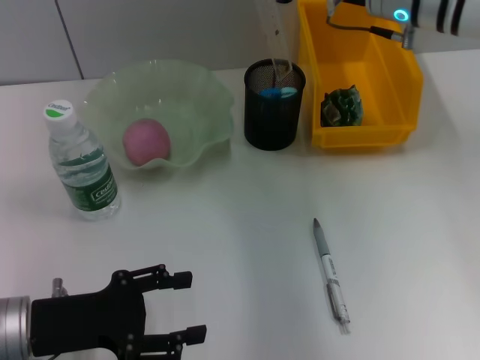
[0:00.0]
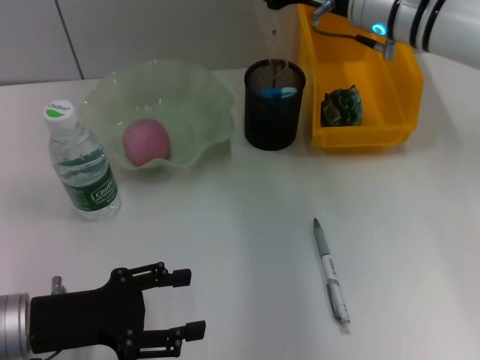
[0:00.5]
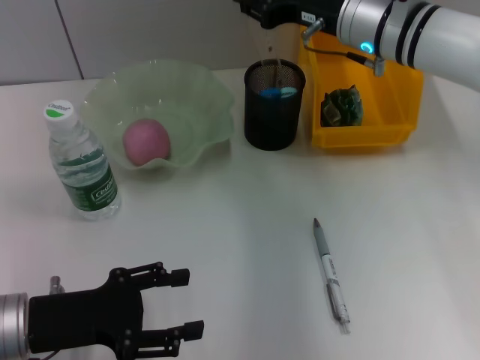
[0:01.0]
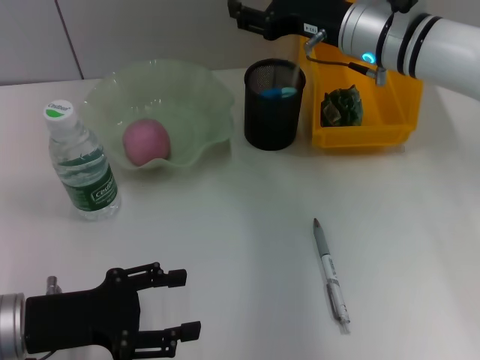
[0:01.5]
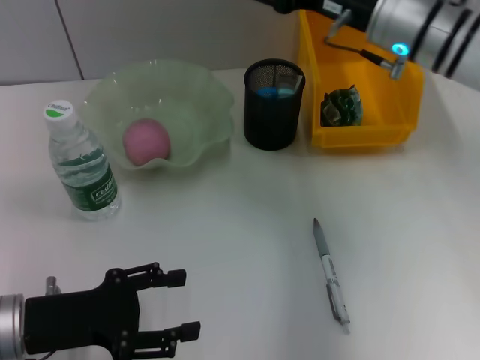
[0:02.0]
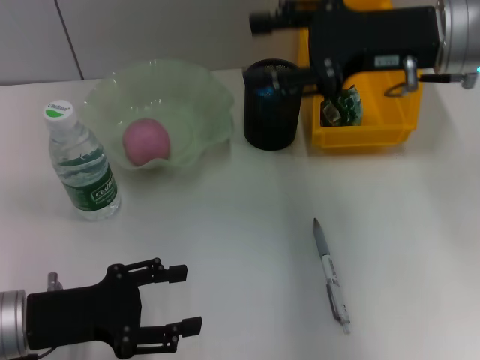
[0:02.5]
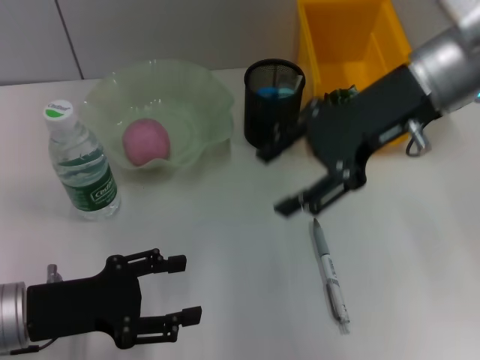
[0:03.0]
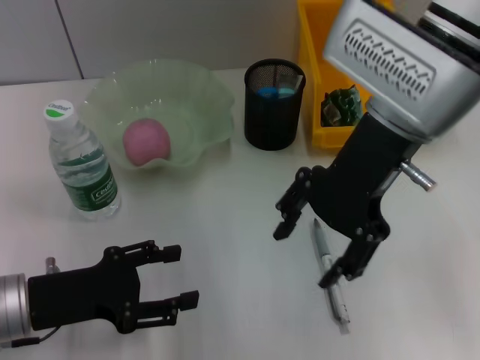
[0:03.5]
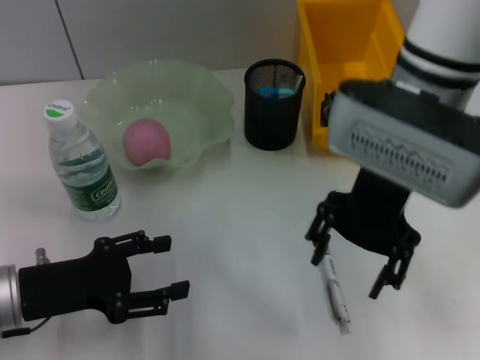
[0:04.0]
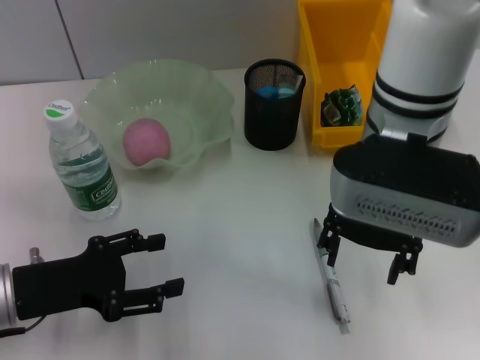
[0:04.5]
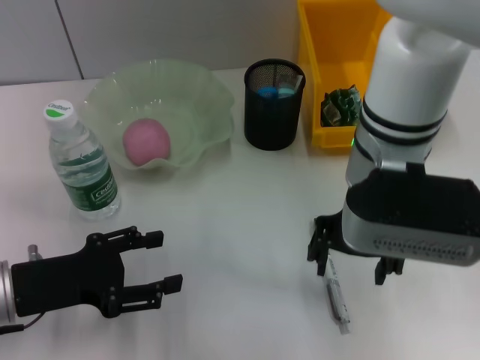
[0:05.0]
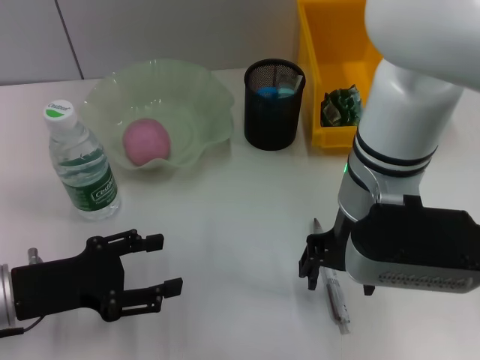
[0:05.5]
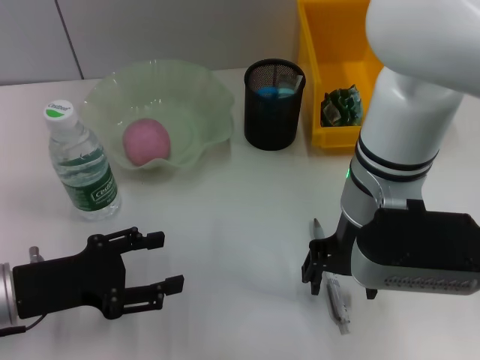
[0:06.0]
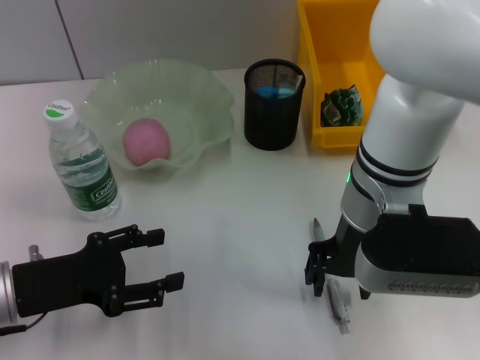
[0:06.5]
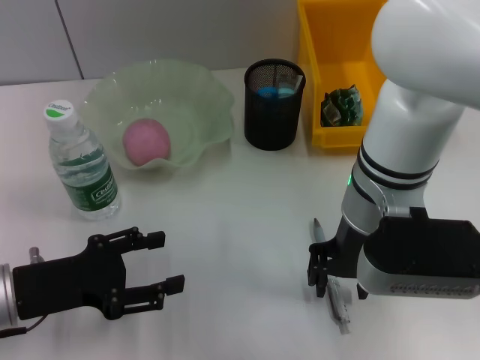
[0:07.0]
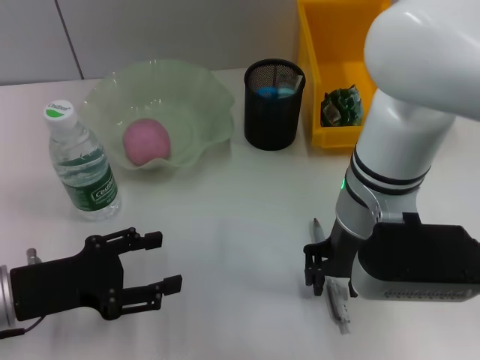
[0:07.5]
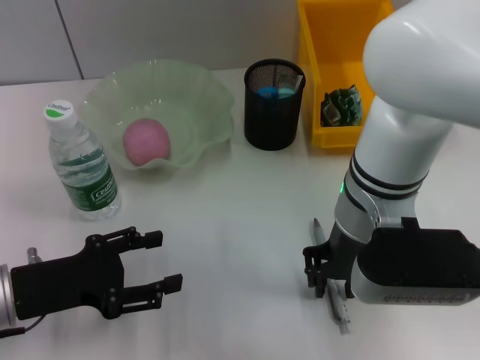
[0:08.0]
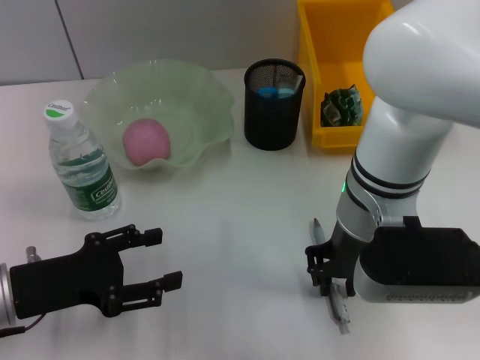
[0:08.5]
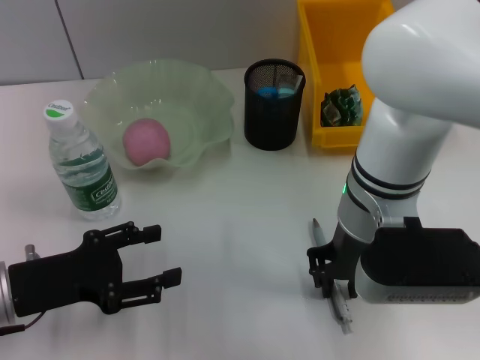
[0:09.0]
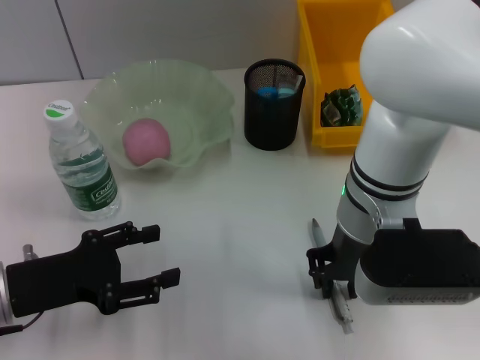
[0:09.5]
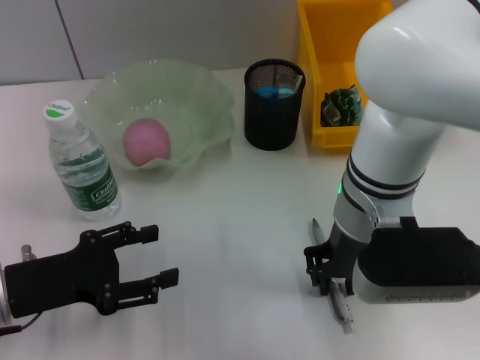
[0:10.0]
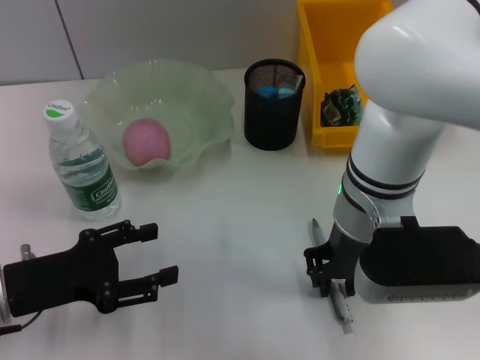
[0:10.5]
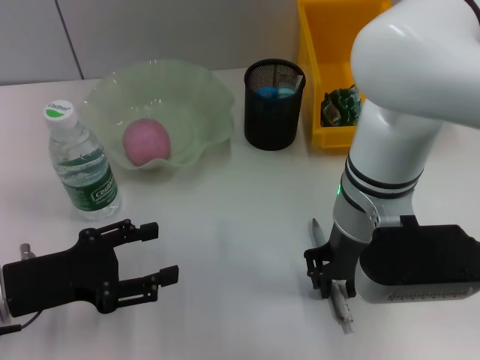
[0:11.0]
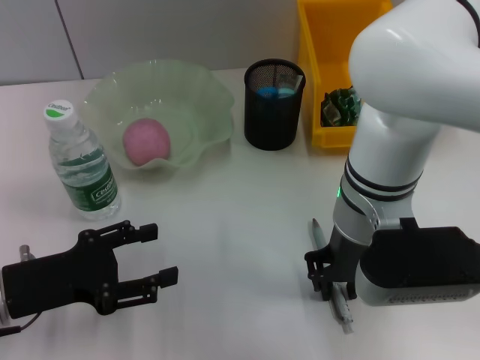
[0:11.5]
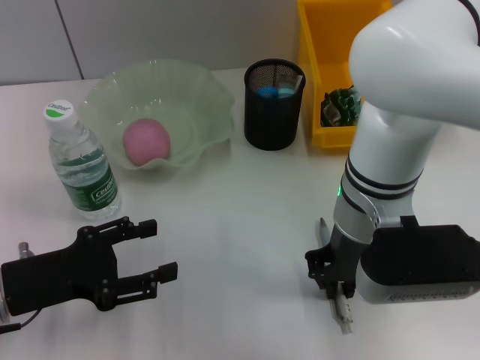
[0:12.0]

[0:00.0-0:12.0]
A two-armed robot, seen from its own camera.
0:00.0 to 0:02.0: The right gripper opens up.
0:02.0 to 0:04.0: The right gripper heads backward and to the left, covering approximately 10 cm.
0:04.0 to 0:06.0: The right gripper goes about 5 cm downward.
0:06.0 to 0:08.0: The right gripper closes its fingers.
0:08.0 to 0:12.0: Neither gripper changes place.

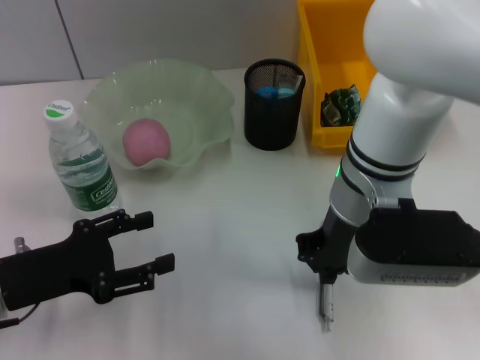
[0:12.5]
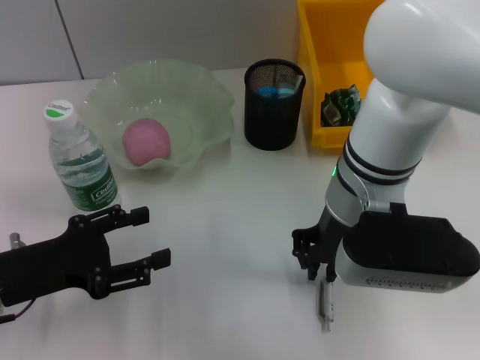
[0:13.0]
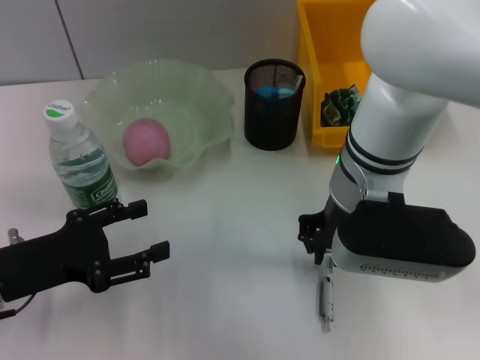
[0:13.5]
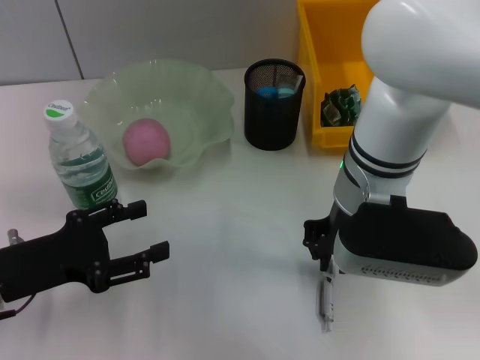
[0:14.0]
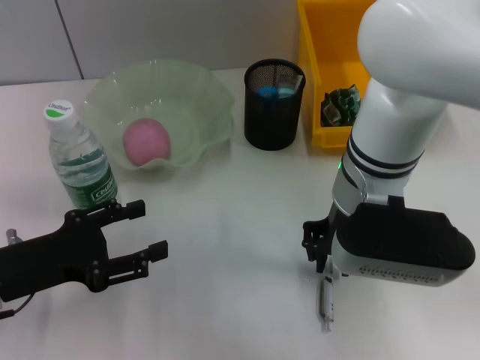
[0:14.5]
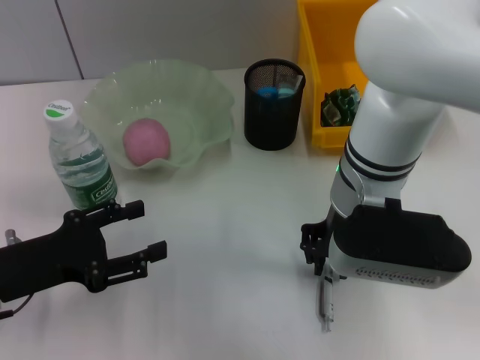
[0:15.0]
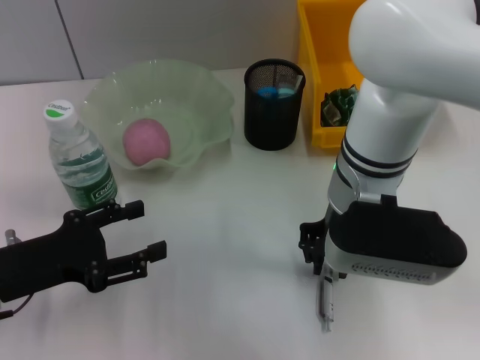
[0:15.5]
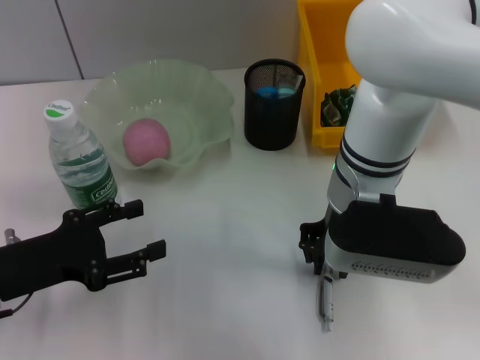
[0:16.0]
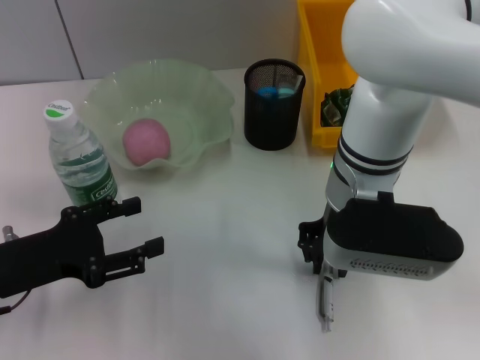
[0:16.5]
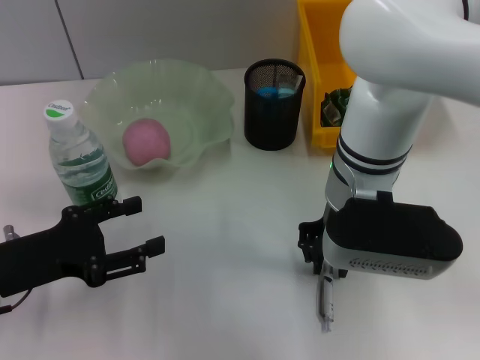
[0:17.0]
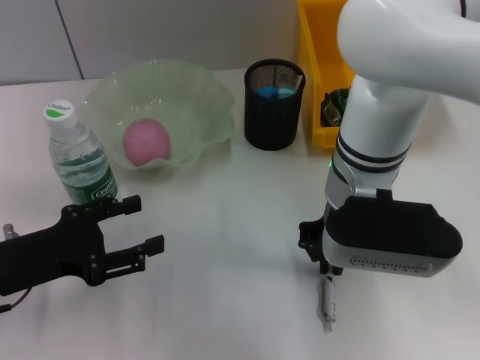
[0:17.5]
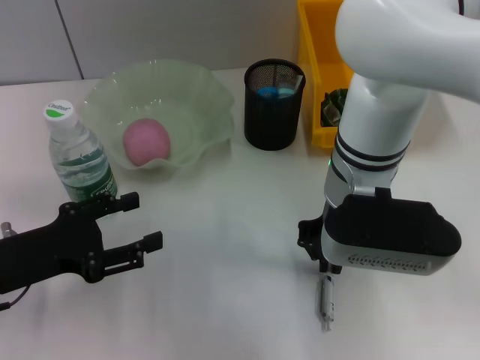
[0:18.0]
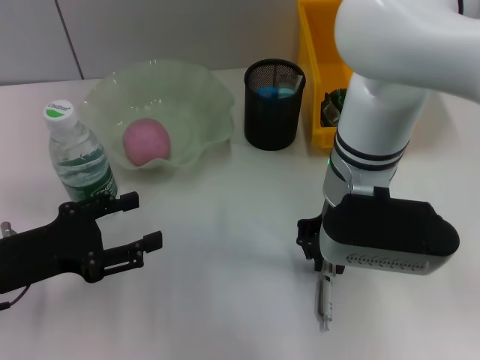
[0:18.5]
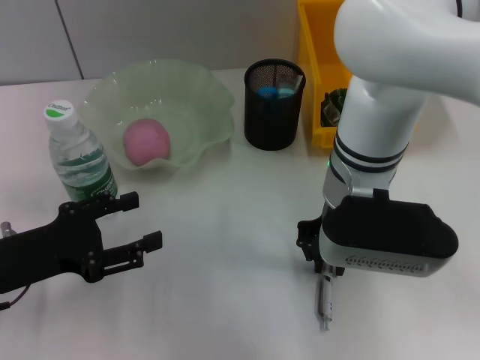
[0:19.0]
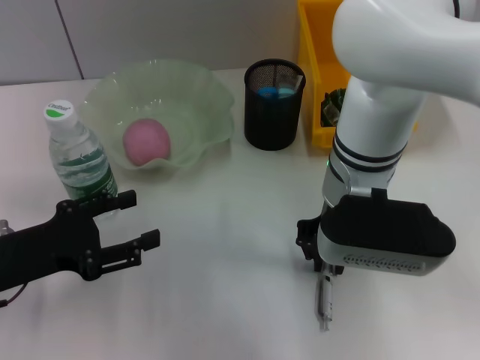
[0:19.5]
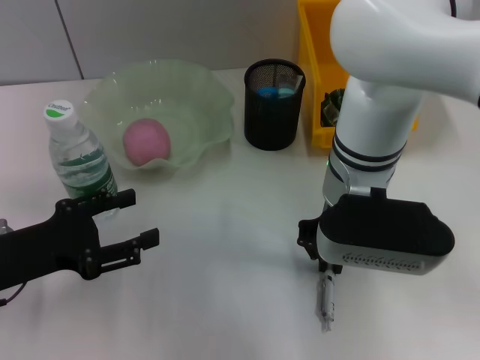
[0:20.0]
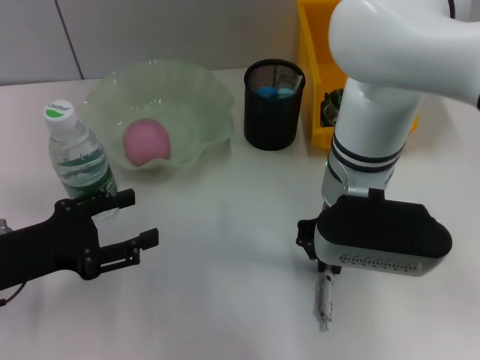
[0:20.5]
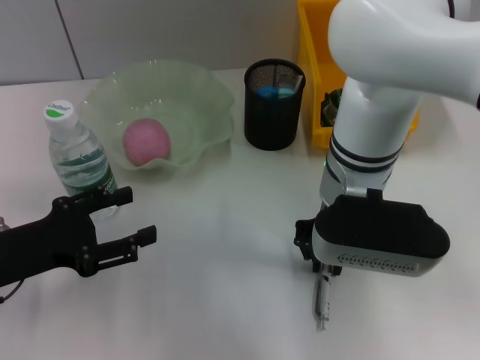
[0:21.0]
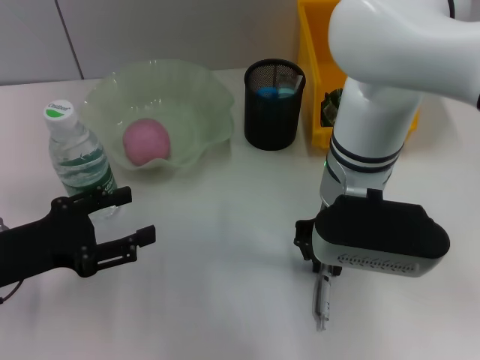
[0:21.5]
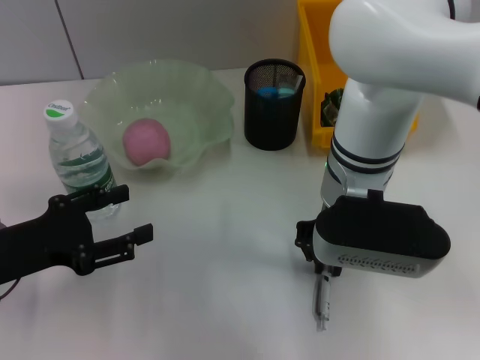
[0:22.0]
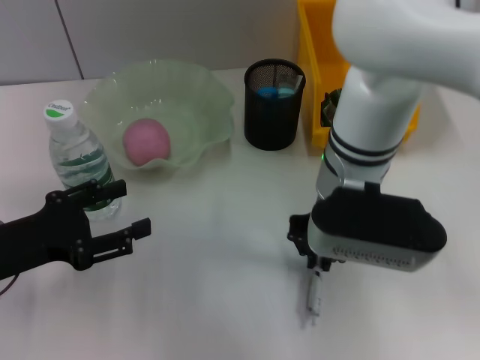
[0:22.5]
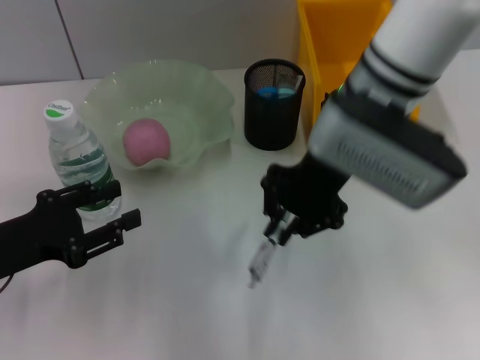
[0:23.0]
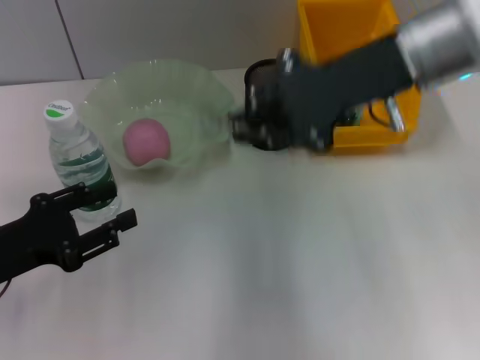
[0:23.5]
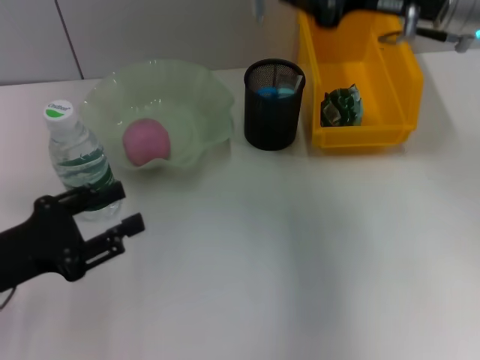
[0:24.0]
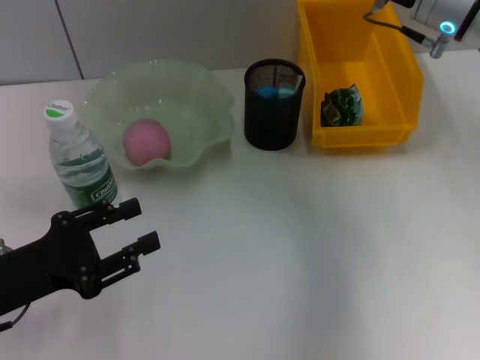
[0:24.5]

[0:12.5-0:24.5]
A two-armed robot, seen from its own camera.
Step, 0:12.5 to 0:22.0: Grab the gray spring-action pen with the right hand.
0:12.5 to 0:14.5: The grippers stay close to where they were, moving slightly.
0:14.5 to 0:18.5: Neither gripper changes place.
0:18.5 to 0:22.5: Both grippers stay about where they are.
0:22.5 to 0:24.5: The right gripper shifts roughly 15 cm to the right, forward and upward.

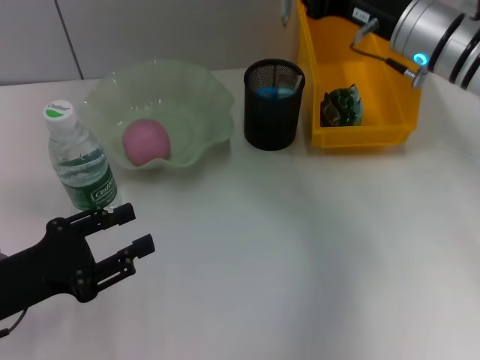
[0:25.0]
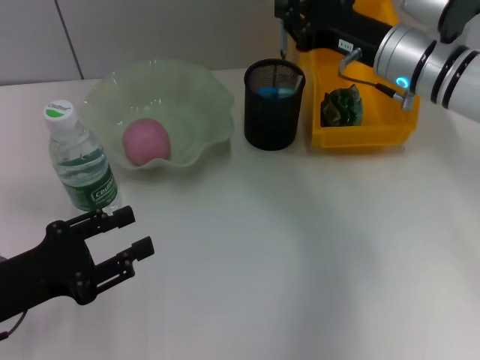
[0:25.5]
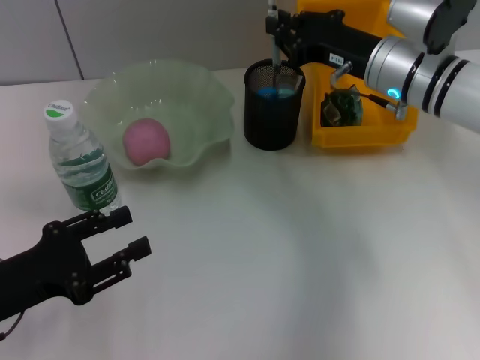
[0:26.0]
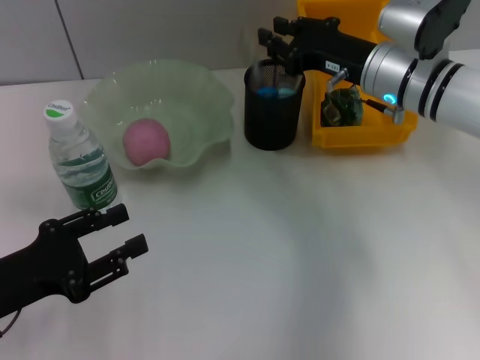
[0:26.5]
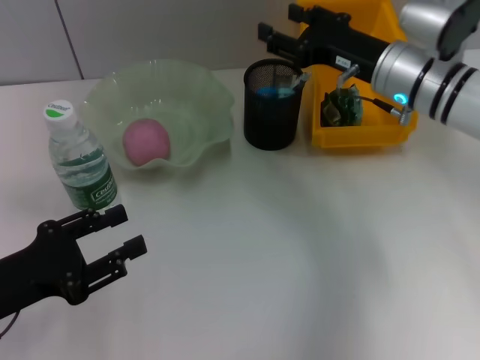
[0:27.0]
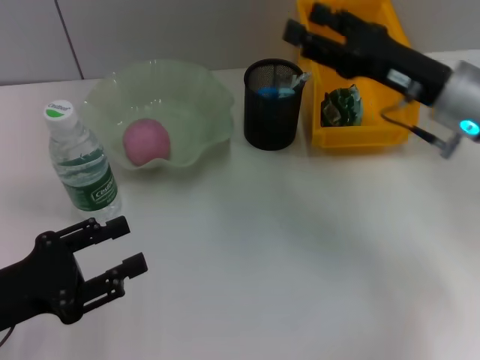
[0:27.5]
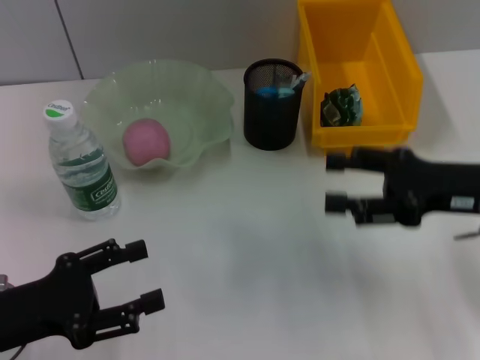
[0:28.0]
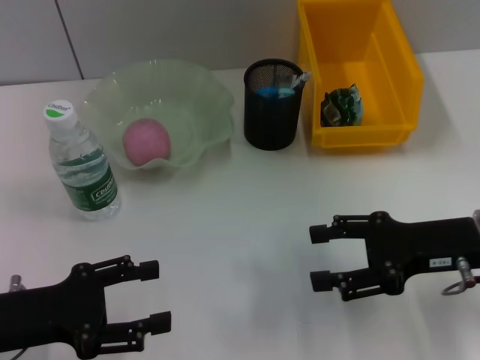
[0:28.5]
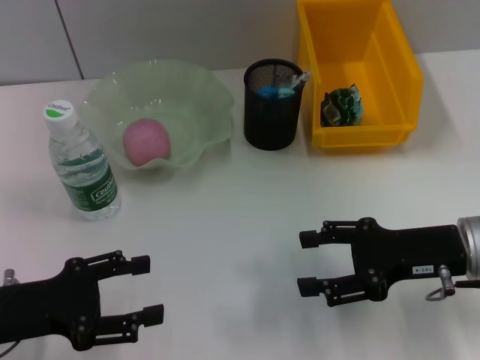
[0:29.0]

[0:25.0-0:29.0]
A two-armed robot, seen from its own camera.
Step, 0:25.0 to 0:27.0: Place the gray spring-action pen into the pen holder with the right hand.
0:25.0 to 0:27.0: The right gripper opens.
0:27.0 to 0:29.0: The right gripper travels backward by roughly 15 cm, and opens up.
